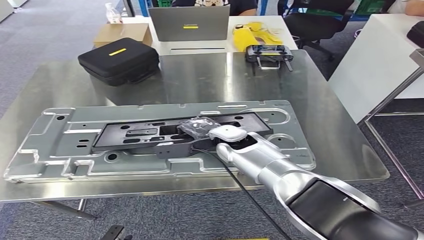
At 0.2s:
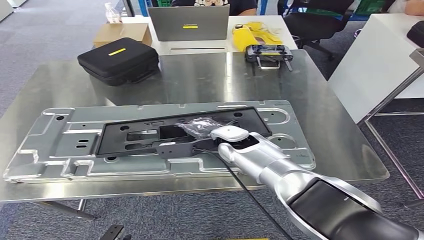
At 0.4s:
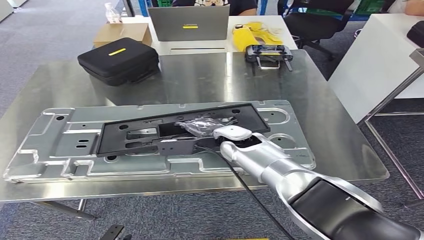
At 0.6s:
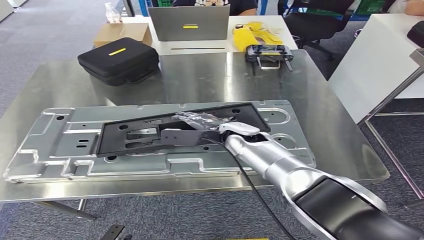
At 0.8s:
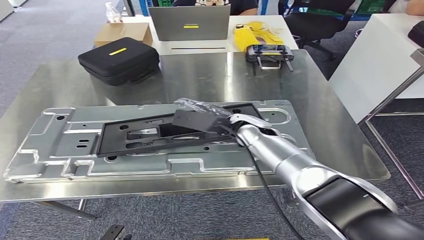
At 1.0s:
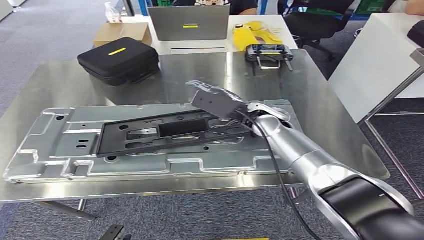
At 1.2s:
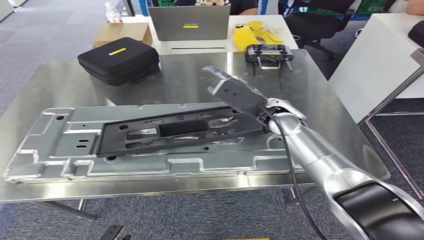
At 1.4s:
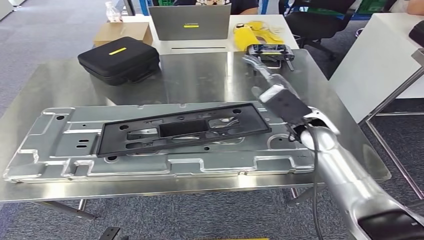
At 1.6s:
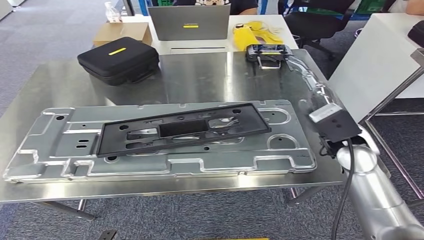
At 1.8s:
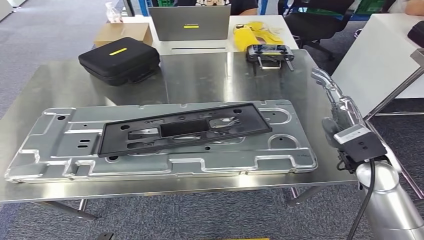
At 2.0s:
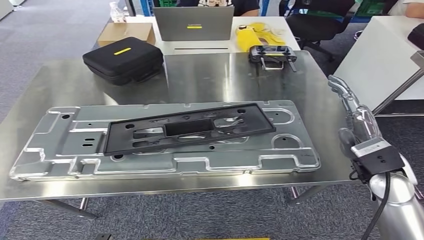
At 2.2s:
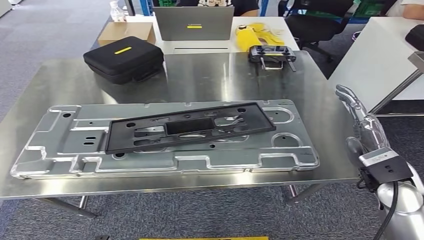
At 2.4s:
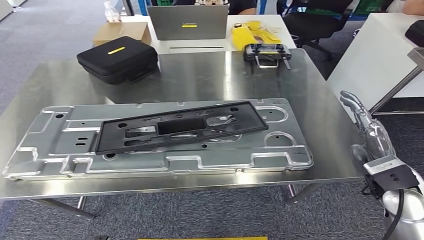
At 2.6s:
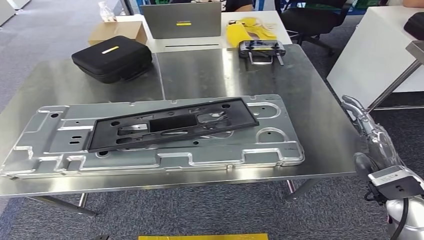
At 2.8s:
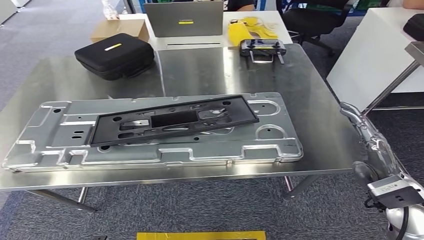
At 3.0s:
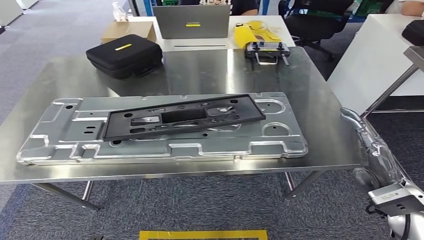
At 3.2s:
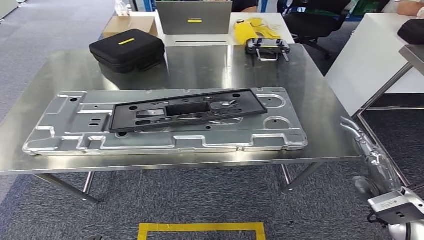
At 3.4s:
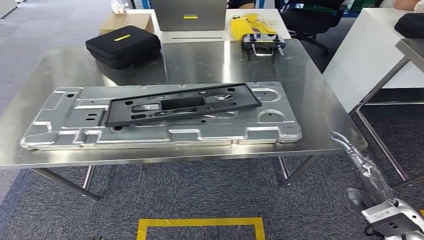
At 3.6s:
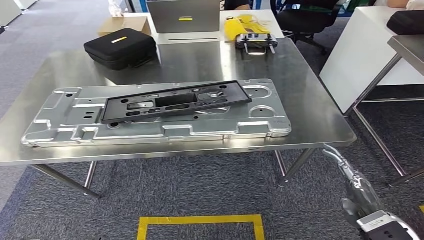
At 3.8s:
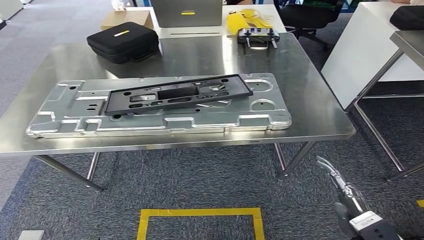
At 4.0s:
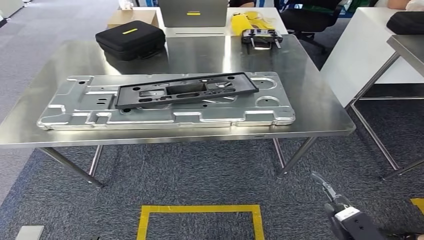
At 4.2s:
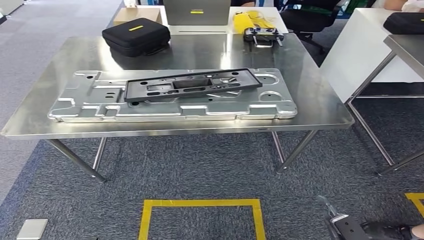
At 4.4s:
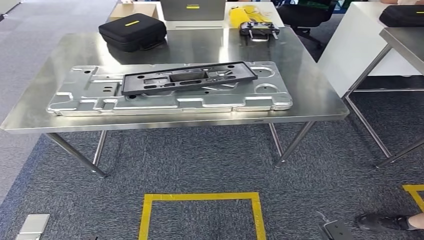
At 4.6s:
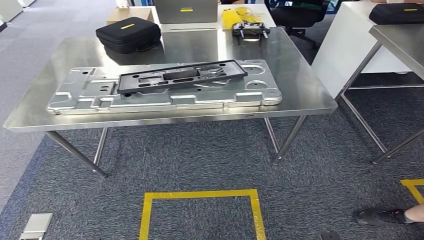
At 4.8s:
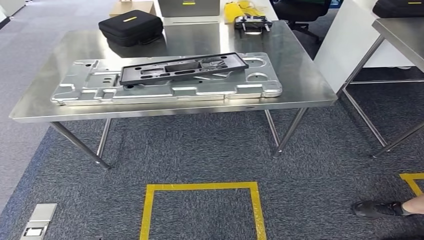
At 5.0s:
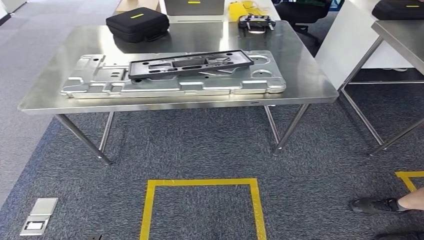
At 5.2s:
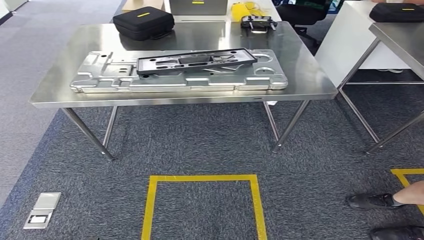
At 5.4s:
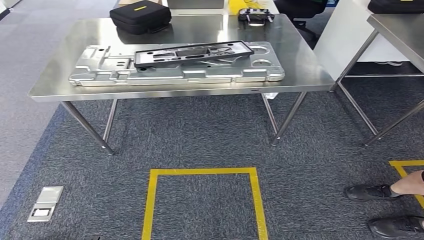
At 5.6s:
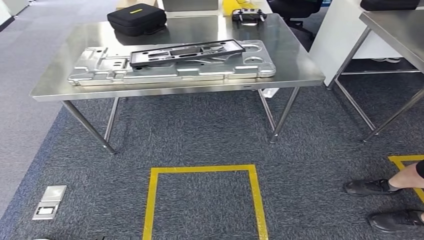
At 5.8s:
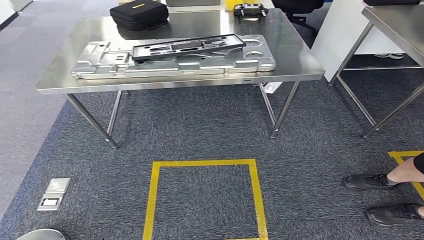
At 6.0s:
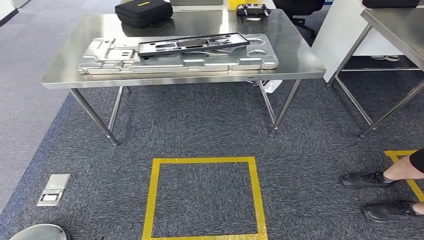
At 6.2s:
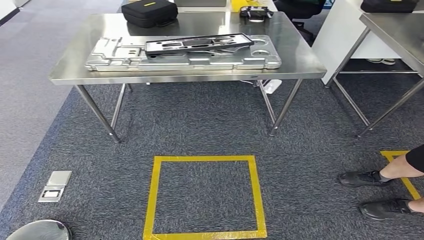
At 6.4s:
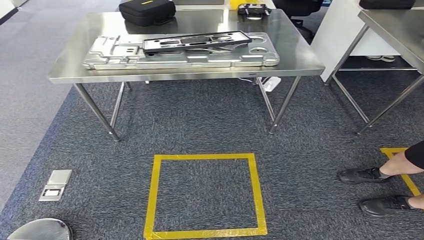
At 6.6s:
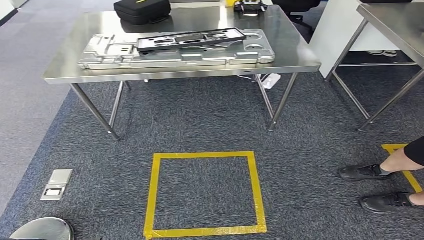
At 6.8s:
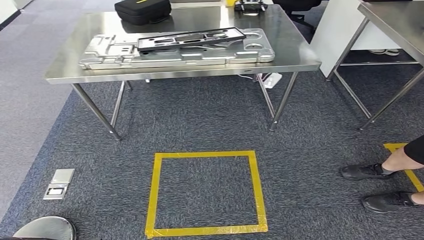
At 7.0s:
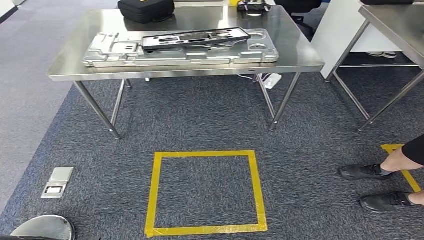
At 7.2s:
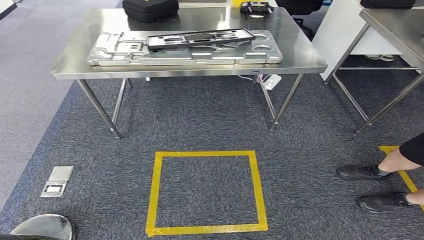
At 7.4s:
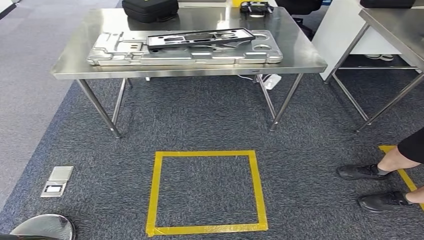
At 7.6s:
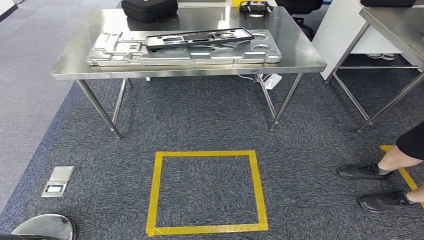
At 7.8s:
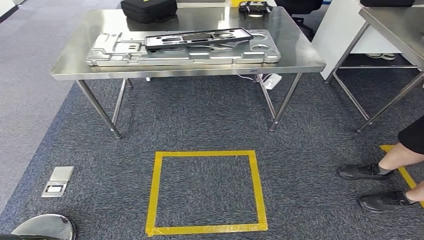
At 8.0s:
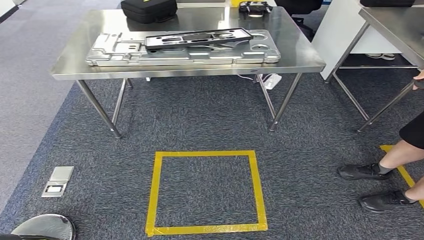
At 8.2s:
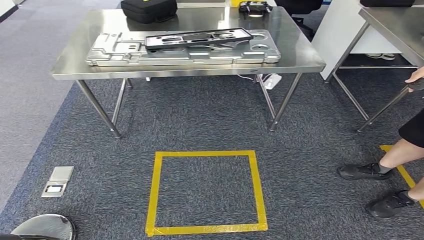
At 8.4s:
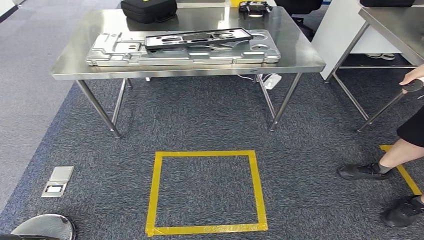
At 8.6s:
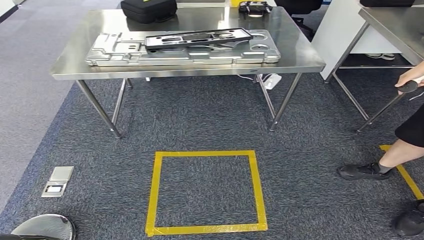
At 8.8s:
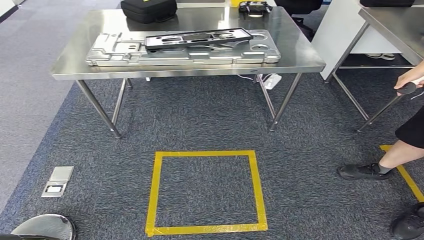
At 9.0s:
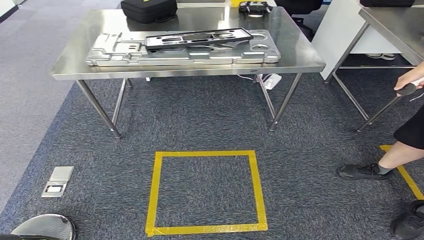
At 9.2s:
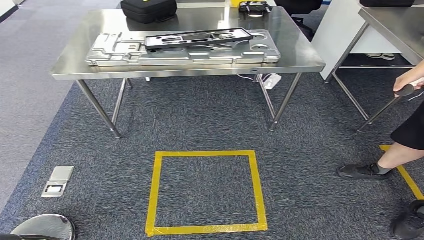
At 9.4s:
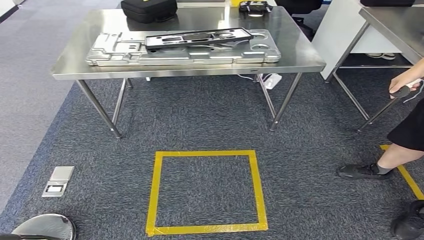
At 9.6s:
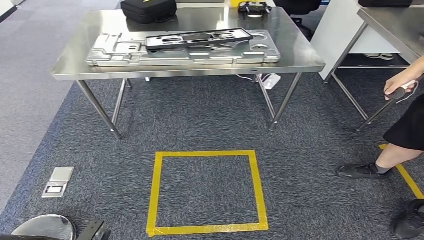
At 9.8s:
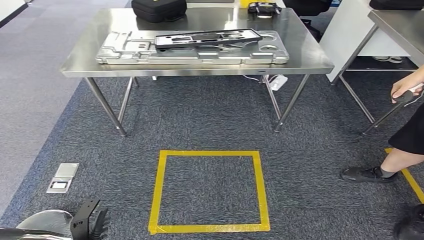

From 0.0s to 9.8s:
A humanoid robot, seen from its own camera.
Step, from 0.0s to 2.4s: Insert the large material into the corresponding slot on the workbench.
Step, from 3.8s to 9.8s: Move to the initial position of the shelf.
From 7.0s to 8.4s: The hands move only a little.
